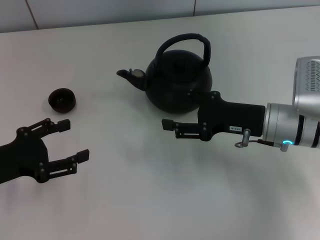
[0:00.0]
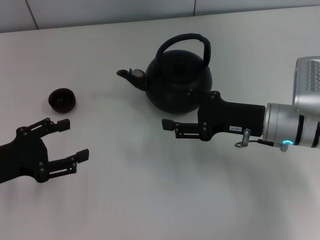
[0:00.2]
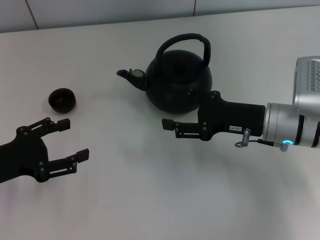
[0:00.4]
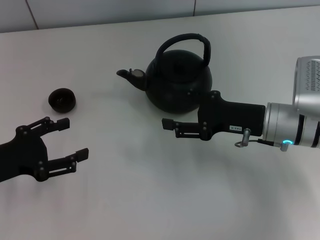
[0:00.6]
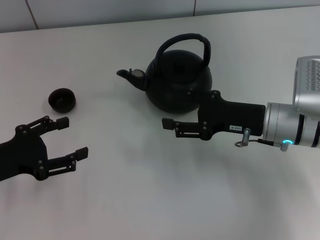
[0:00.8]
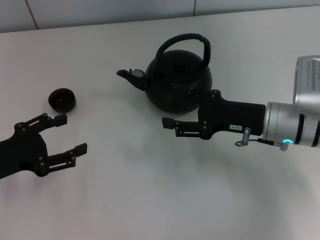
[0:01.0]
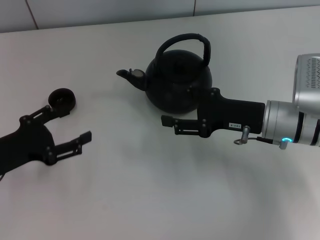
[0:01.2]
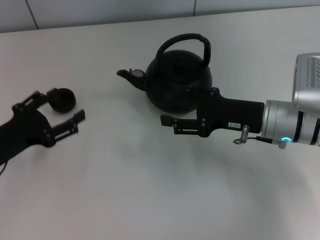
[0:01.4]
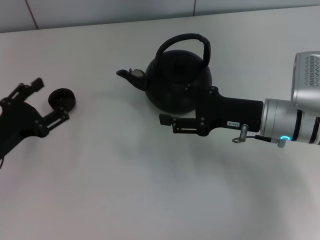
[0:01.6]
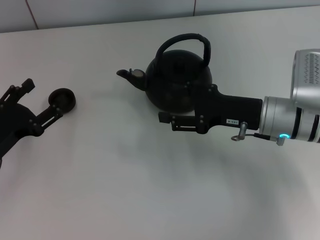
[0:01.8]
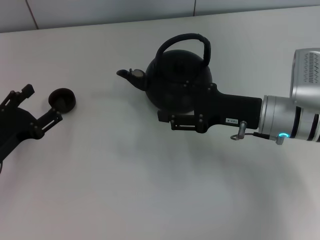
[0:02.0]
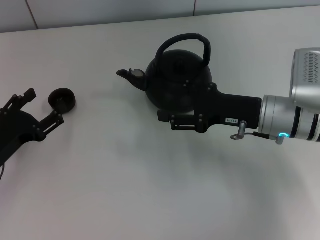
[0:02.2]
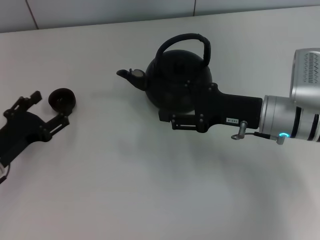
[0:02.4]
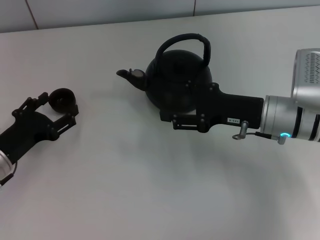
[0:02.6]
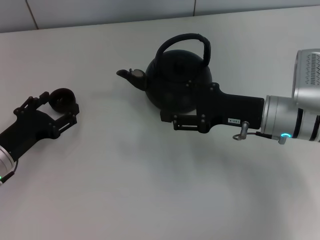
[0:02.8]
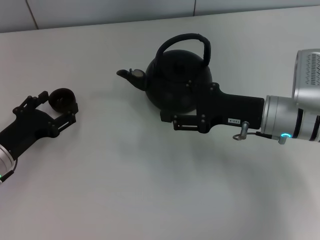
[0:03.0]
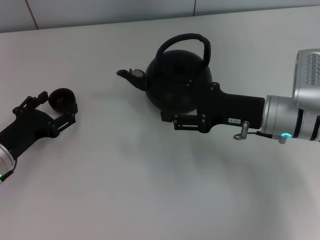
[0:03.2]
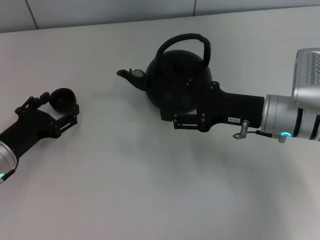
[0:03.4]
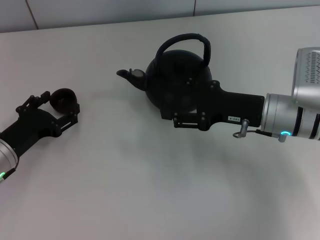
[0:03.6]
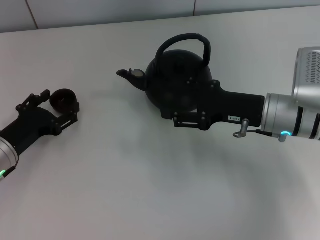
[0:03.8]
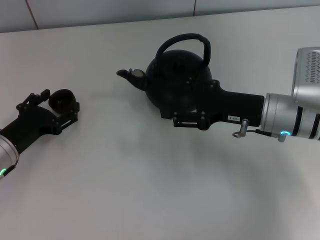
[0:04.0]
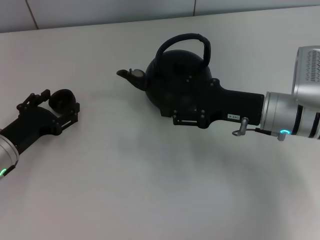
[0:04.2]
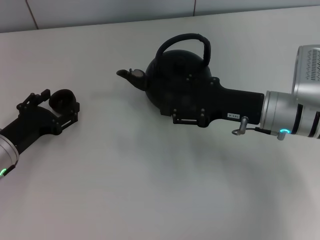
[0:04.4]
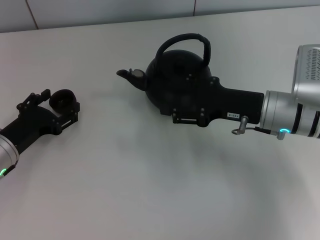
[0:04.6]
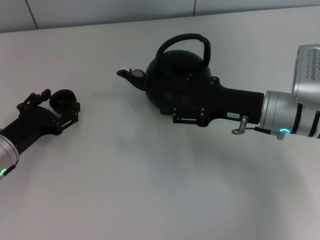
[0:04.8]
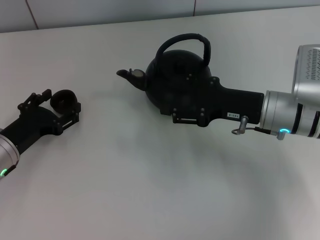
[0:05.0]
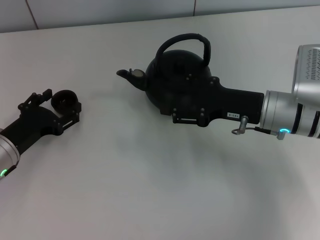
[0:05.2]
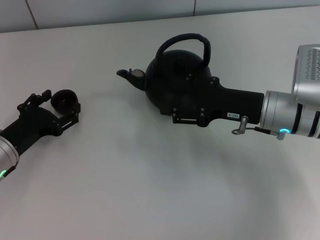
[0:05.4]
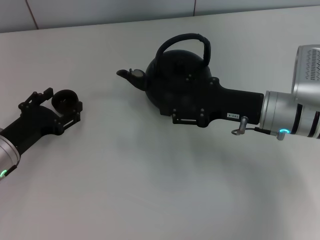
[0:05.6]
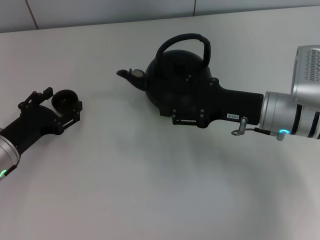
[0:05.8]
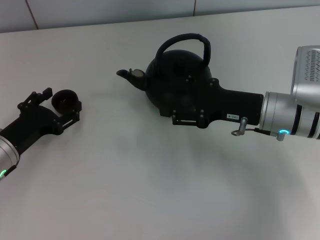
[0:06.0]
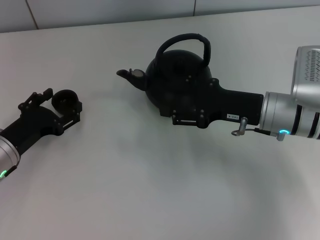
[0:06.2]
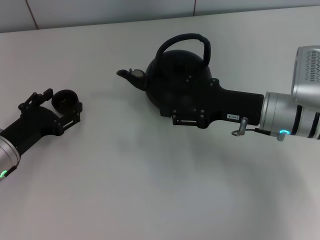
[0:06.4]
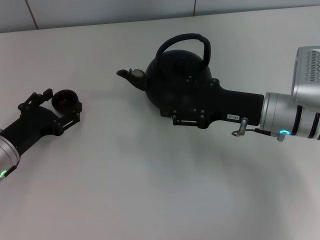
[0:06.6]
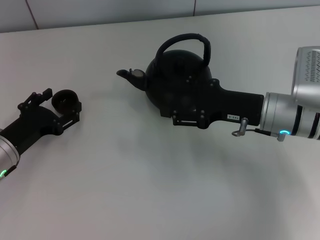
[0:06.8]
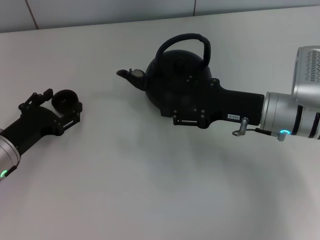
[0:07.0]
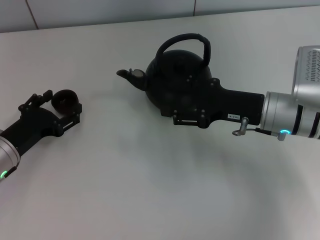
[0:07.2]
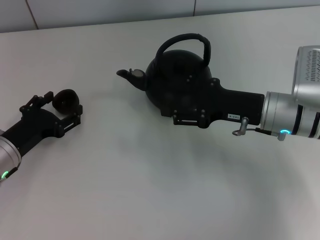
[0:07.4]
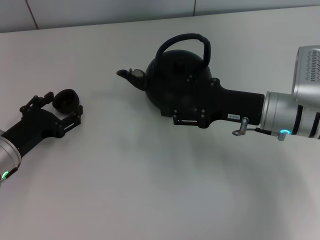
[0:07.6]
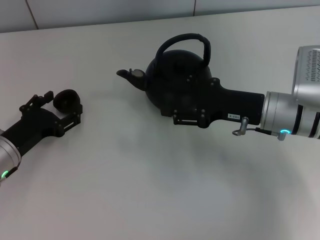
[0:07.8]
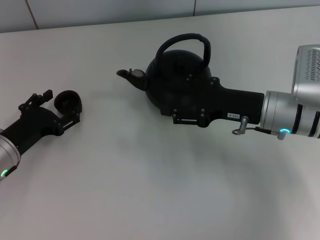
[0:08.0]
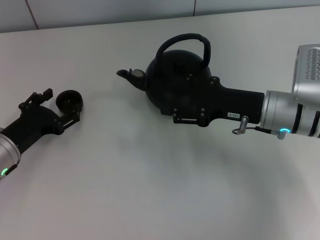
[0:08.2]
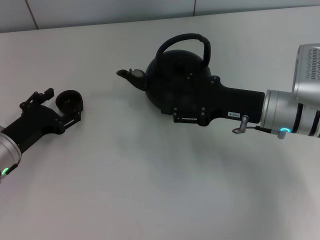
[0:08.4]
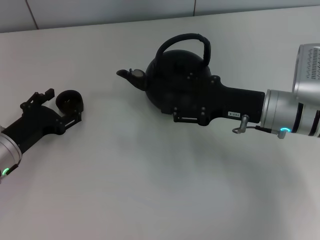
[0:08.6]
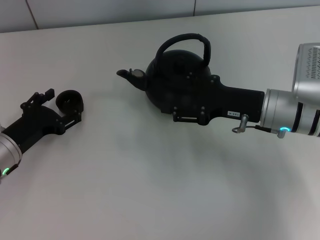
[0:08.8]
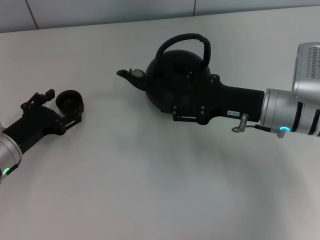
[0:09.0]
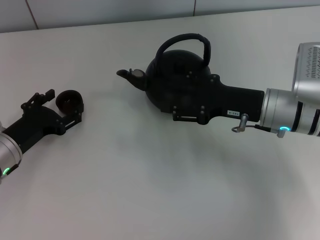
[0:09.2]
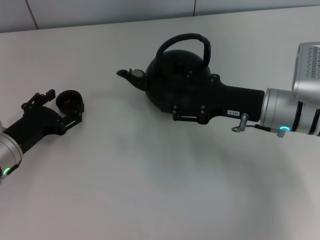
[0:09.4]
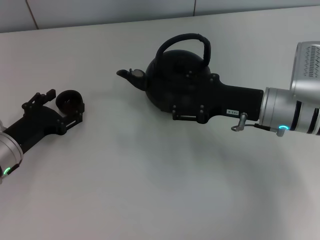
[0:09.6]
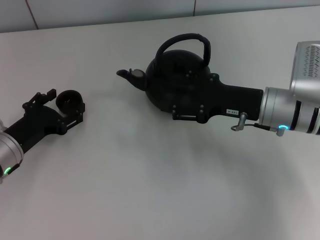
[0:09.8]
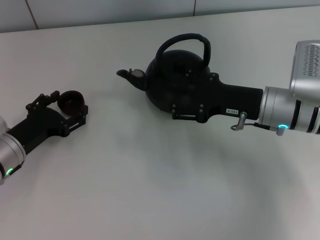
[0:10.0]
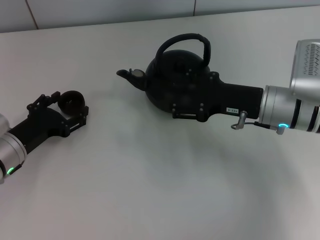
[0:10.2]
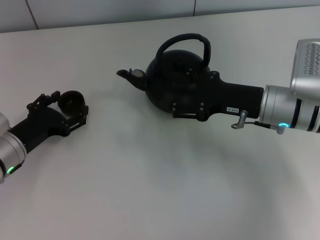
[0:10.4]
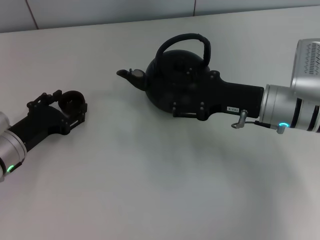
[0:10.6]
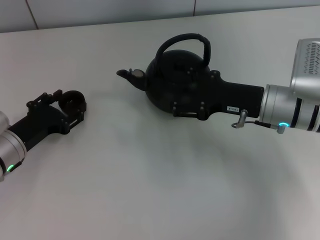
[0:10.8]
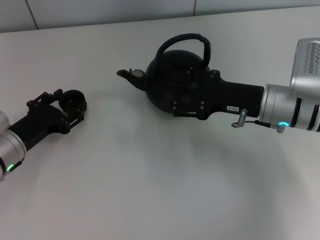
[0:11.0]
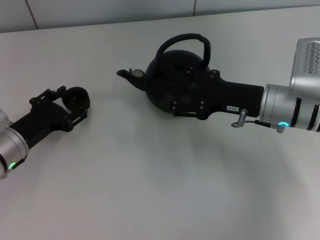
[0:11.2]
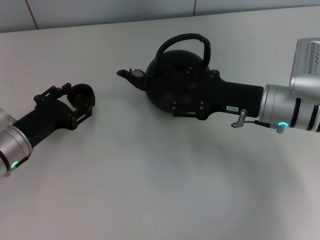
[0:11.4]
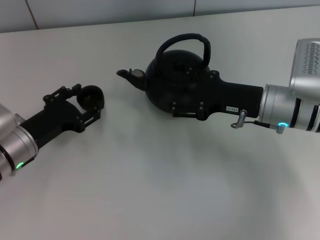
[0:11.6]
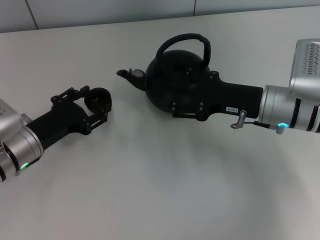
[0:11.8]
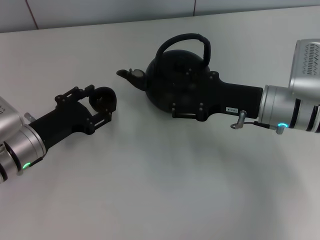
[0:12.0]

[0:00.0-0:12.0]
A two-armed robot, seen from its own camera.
Task of the whole recording: Grasp the handle of the teapot with one hand and pour tea into the teacup.
0:01.6 to 0:04.4: The grippers stay close to where they were, moving slightly.
0:04.4 to 0:09.0: Both grippers stay about where they are.
0:09.0 to 0:10.4: The left gripper closes.
0:10.4 to 0:12.0: The left gripper closes.

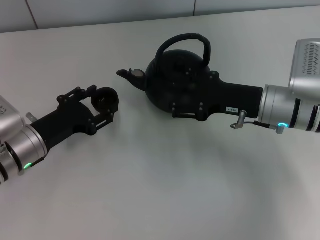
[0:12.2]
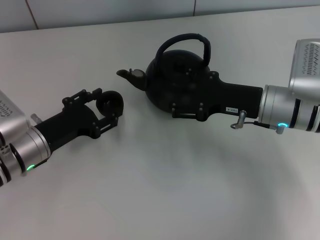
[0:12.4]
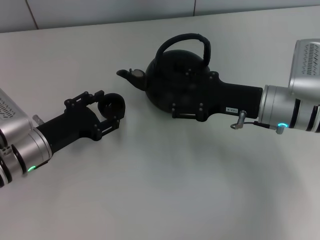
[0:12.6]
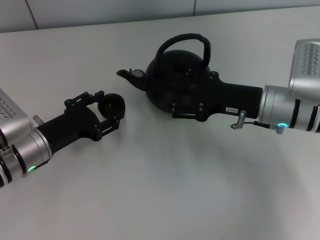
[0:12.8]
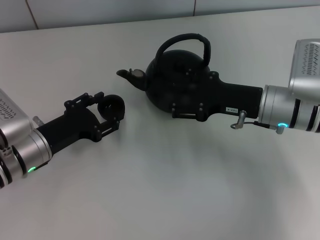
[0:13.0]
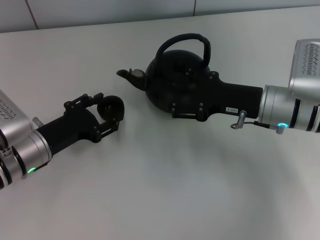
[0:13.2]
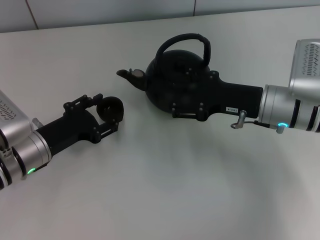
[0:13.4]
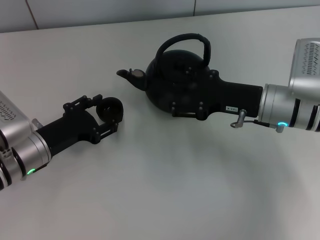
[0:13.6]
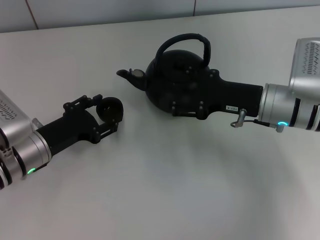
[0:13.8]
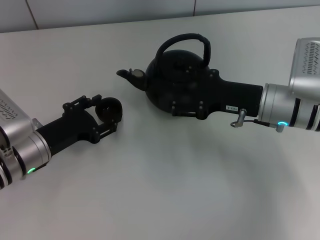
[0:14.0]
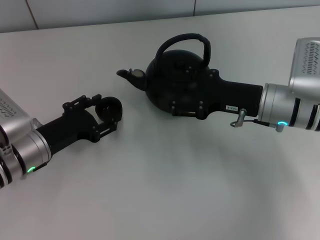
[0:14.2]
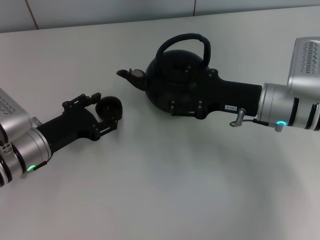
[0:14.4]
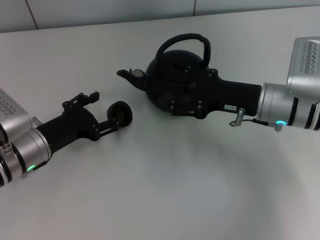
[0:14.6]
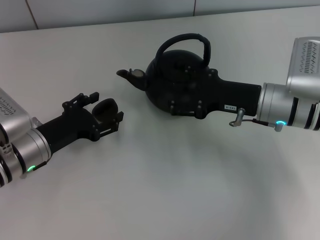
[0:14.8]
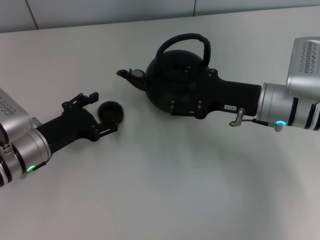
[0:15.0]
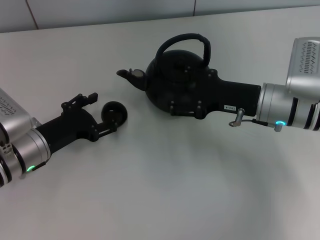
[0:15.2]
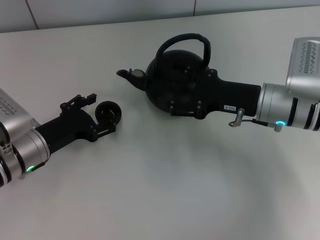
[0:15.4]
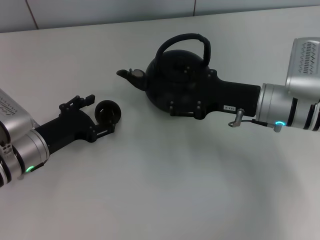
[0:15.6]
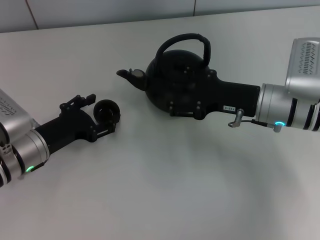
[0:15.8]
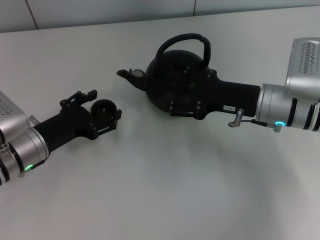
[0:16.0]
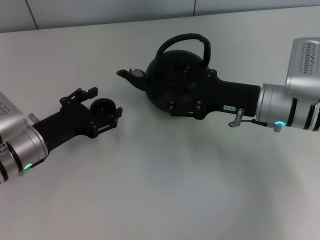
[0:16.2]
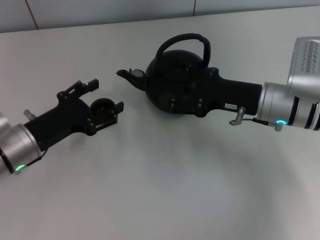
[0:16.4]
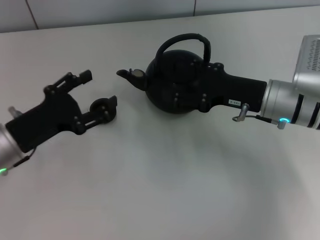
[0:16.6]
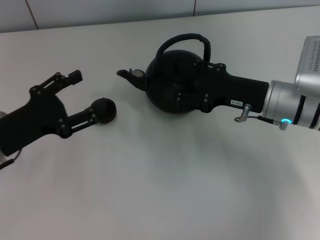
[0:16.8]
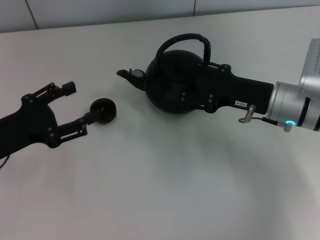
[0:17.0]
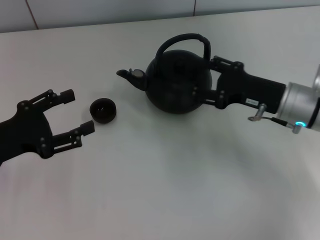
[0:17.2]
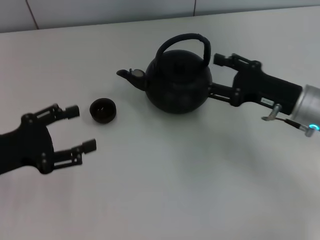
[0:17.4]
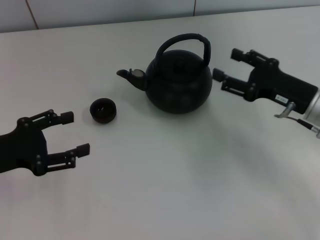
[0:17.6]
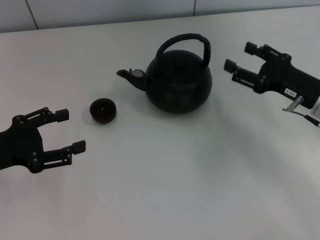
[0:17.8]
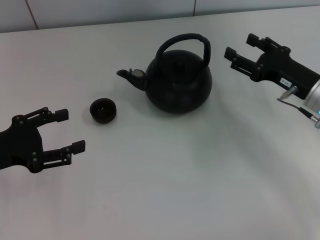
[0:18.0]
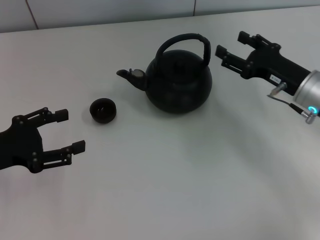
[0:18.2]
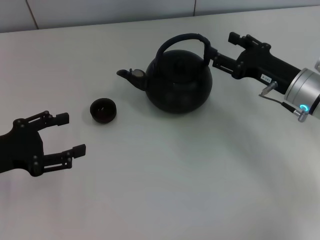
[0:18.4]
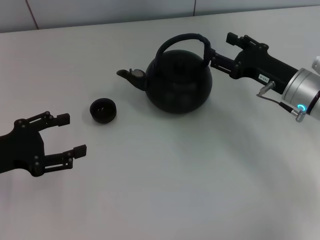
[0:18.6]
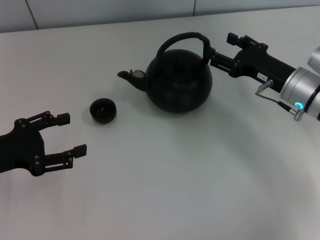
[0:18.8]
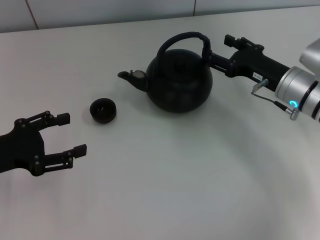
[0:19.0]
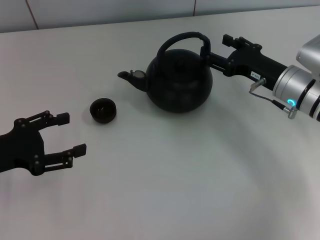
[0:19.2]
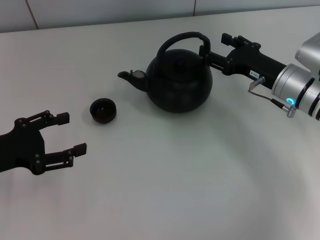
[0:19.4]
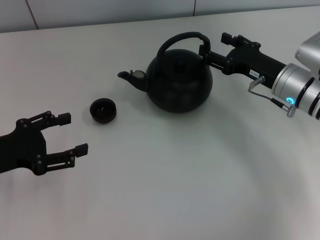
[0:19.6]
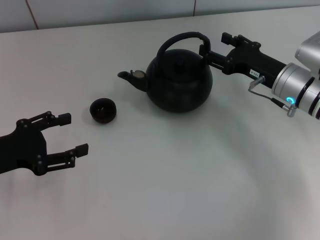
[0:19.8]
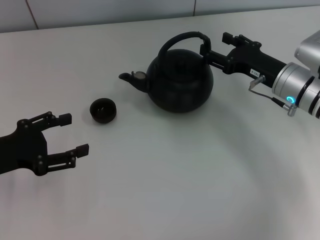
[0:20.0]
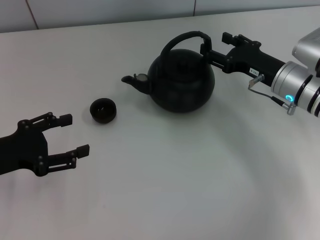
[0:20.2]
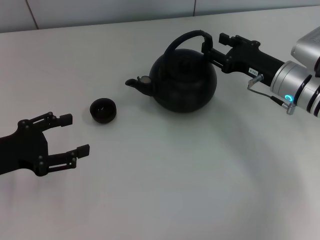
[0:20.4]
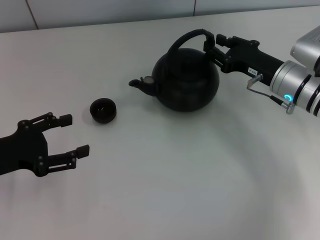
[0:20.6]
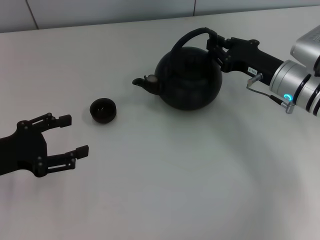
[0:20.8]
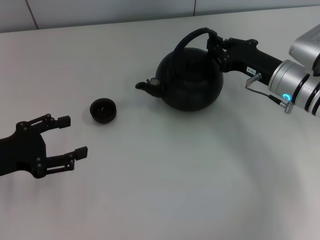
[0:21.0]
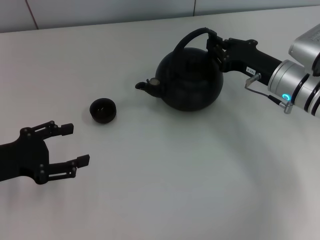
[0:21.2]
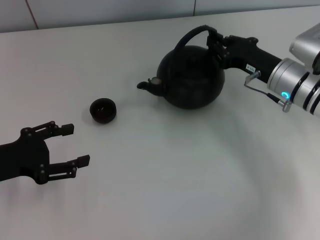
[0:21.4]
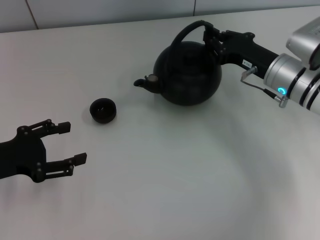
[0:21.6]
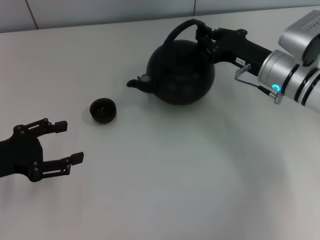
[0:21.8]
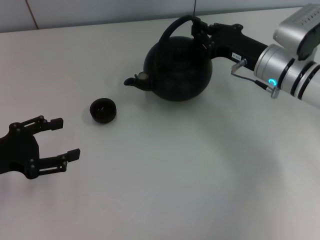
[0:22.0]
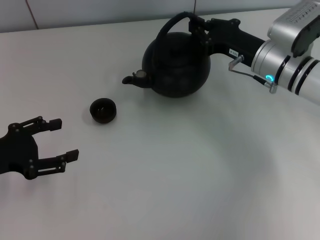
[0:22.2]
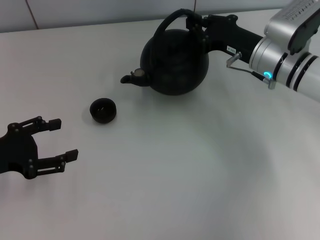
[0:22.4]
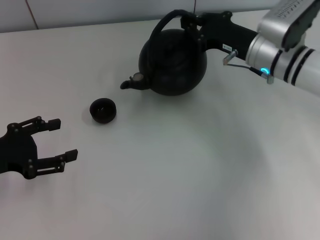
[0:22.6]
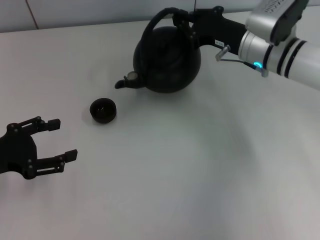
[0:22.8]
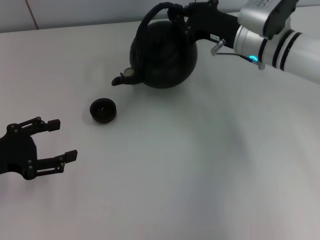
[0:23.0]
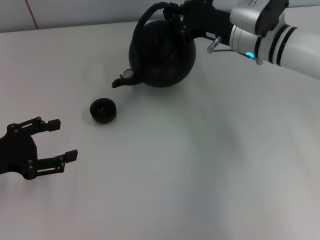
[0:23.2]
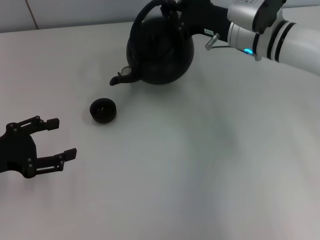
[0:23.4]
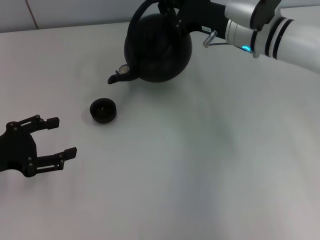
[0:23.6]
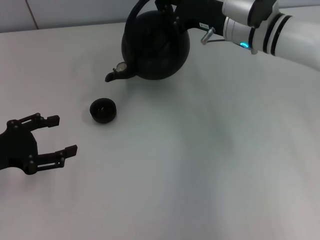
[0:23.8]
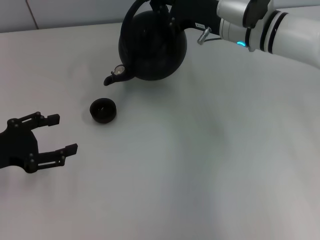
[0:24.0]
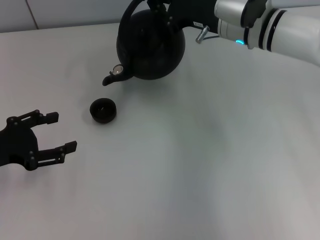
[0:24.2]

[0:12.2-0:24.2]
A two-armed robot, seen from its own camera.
Task of the whole recording: Grasp the handle of the teapot with one hand and pour tea into the teacup.
Step, 0:12.2 to 0:17.2: Place the teacup in the center of view with the left gripper.
Step, 0:17.6 to 0:22.4: Pick up the teapot with the right gripper.
0:12.2 to 0:13.8: Both grippers stay put.
0:13.8 to 0:15.2: The left gripper opens.
0:15.2 to 0:16.6: The left gripper shifts by about 5 cm.
0:16.6 to 0:18.2: The right gripper shifts some 5 cm to the right. Meanwhile the left gripper moves to the left, roughly 5 cm.
0:18.2 to 0:19.8: The grippers make only small movements.
0:19.8 to 0:21.2: The right gripper closes its fingers.
0:21.2 to 0:22.6: The right gripper moves approximately 5 cm.
0:22.6 to 0:24.2: The right gripper changes place by roughly 5 cm.
